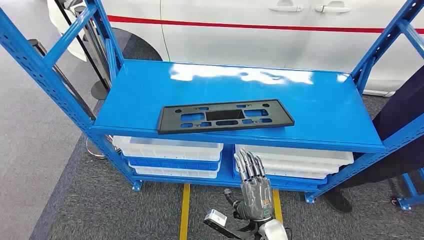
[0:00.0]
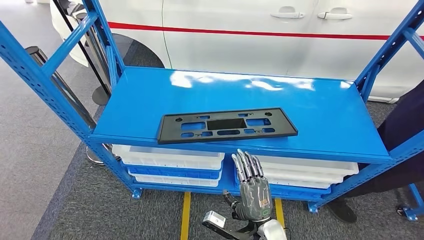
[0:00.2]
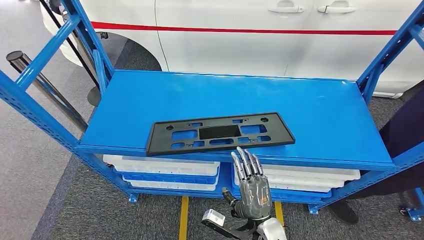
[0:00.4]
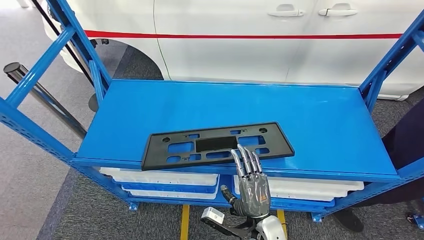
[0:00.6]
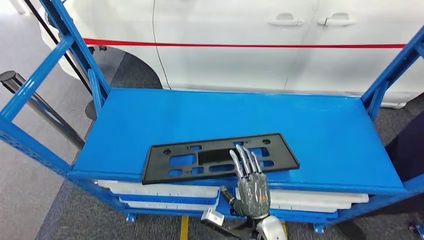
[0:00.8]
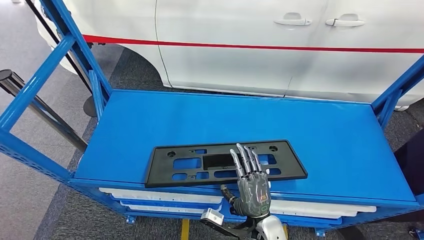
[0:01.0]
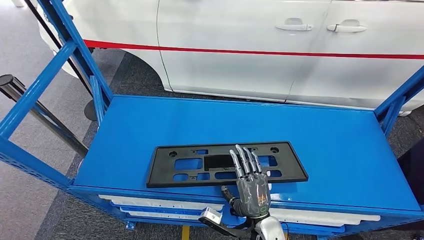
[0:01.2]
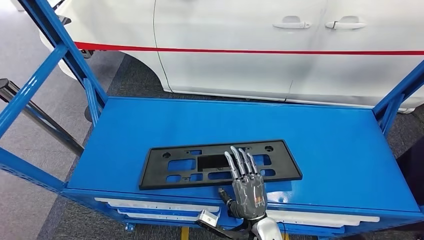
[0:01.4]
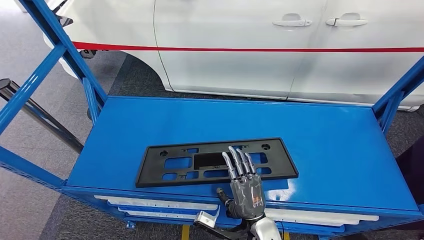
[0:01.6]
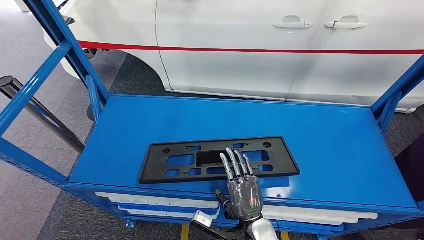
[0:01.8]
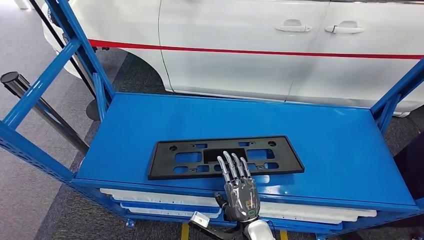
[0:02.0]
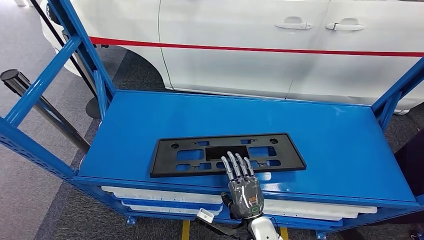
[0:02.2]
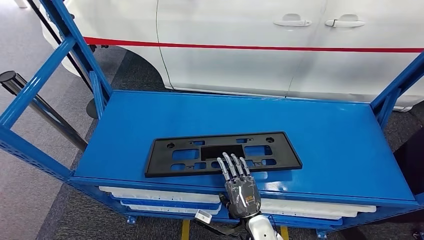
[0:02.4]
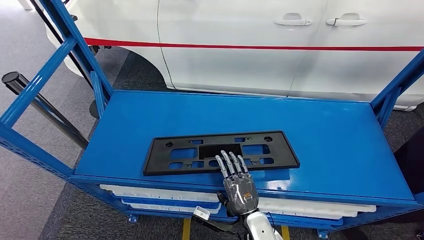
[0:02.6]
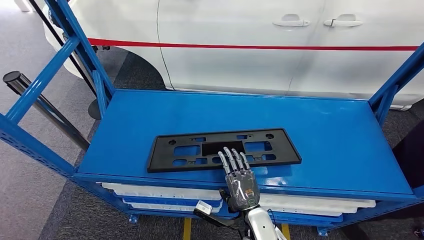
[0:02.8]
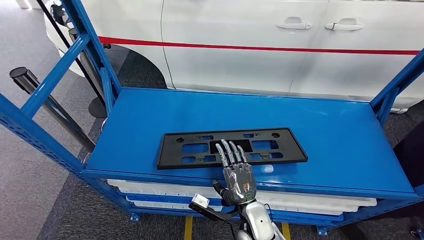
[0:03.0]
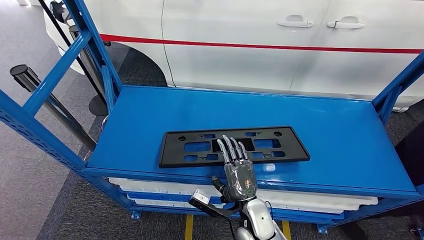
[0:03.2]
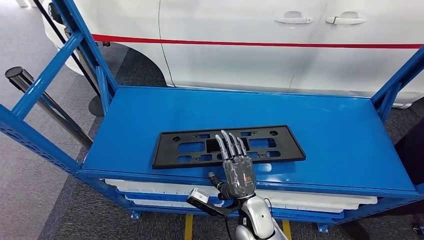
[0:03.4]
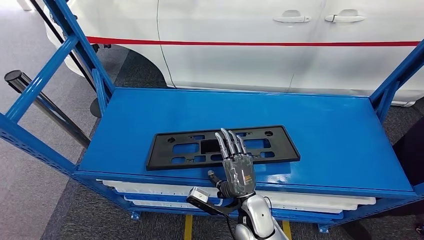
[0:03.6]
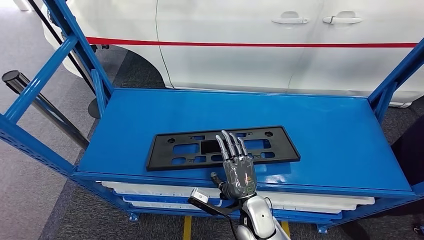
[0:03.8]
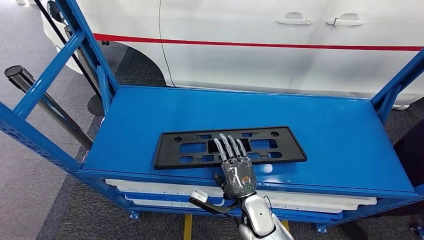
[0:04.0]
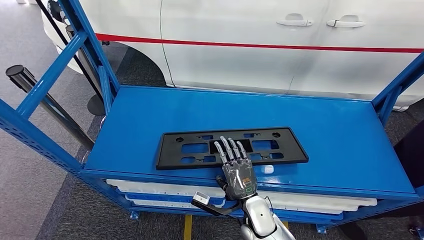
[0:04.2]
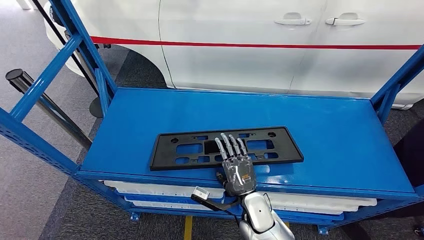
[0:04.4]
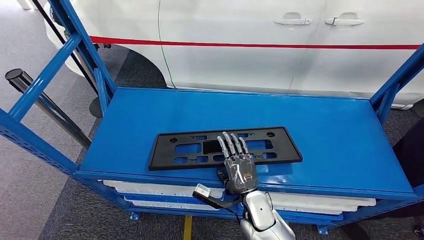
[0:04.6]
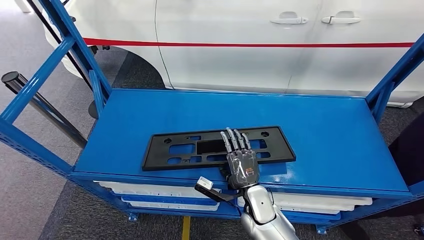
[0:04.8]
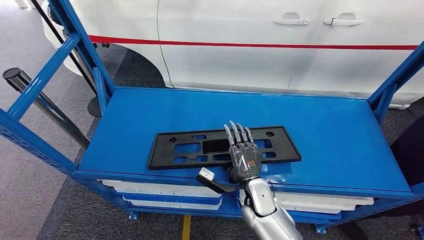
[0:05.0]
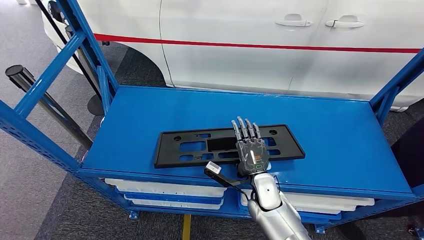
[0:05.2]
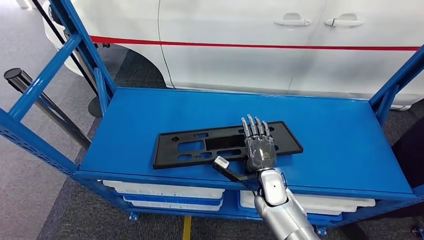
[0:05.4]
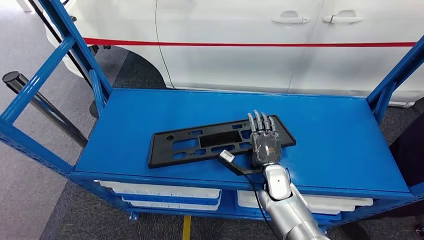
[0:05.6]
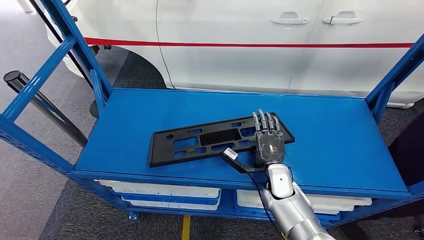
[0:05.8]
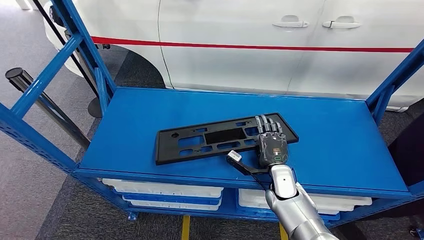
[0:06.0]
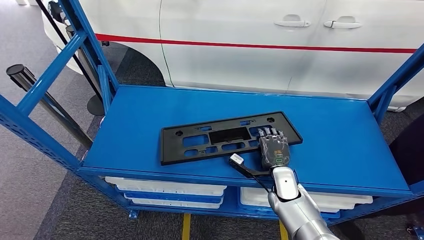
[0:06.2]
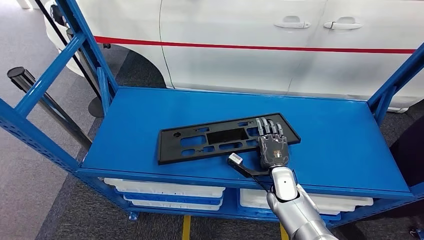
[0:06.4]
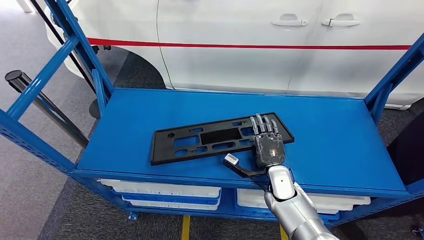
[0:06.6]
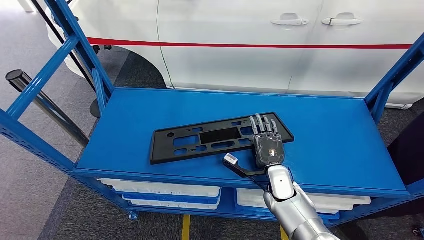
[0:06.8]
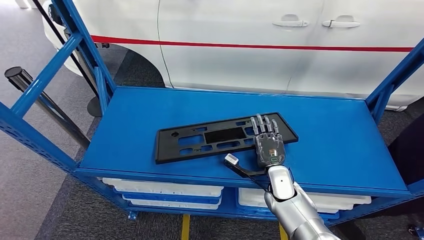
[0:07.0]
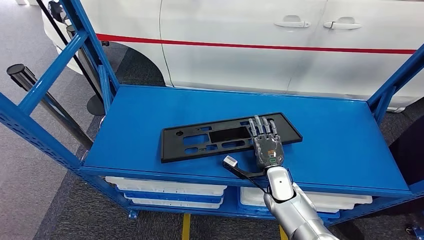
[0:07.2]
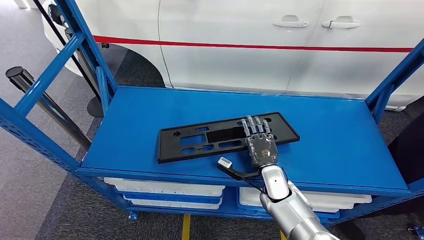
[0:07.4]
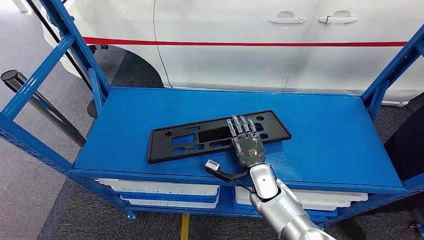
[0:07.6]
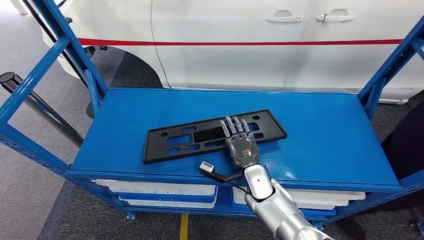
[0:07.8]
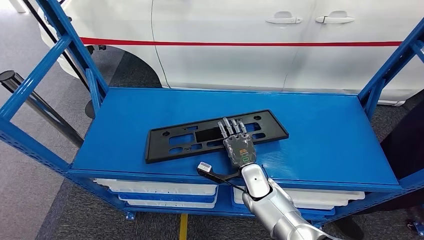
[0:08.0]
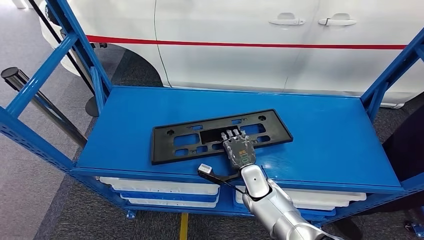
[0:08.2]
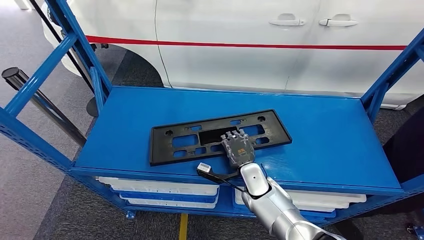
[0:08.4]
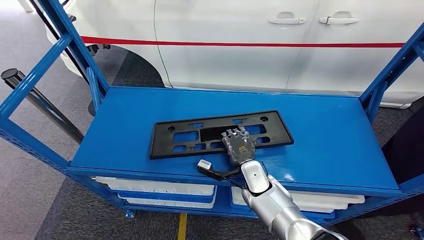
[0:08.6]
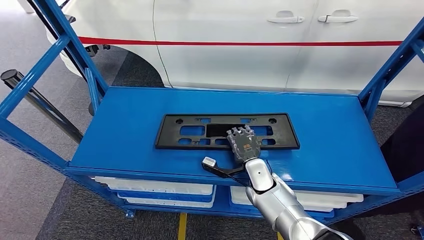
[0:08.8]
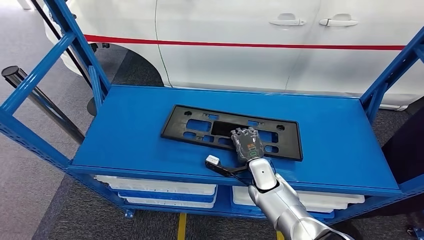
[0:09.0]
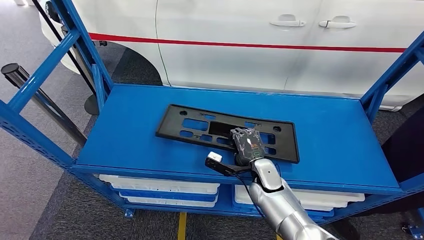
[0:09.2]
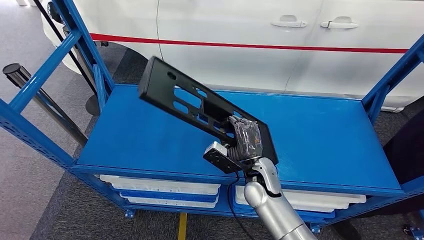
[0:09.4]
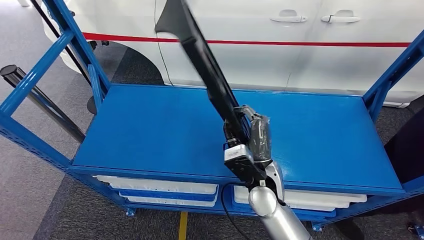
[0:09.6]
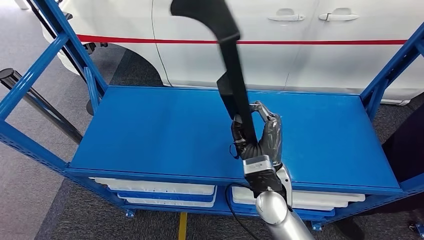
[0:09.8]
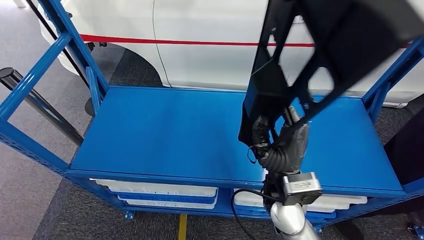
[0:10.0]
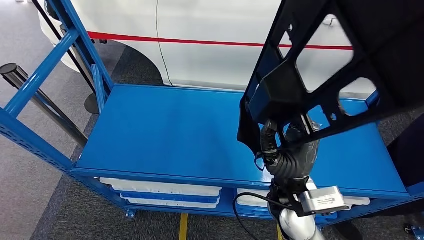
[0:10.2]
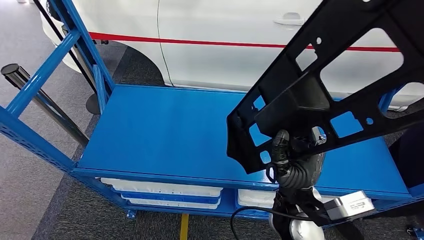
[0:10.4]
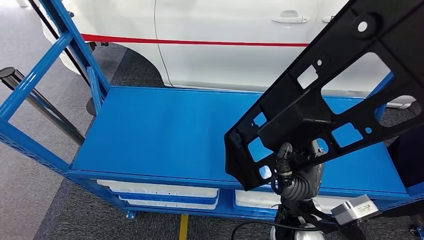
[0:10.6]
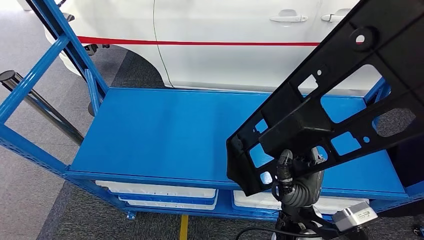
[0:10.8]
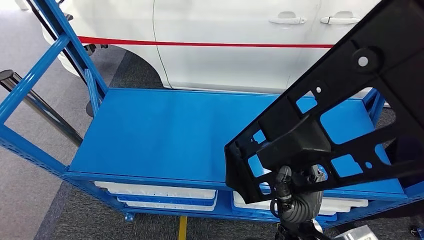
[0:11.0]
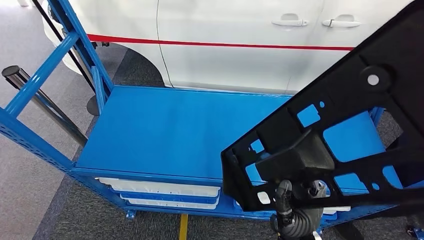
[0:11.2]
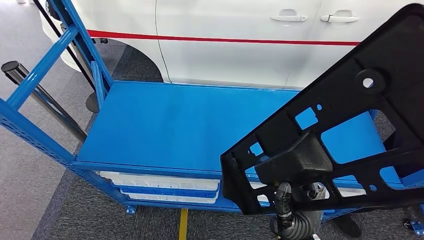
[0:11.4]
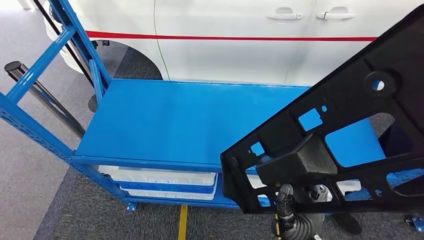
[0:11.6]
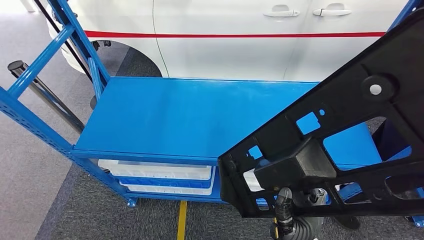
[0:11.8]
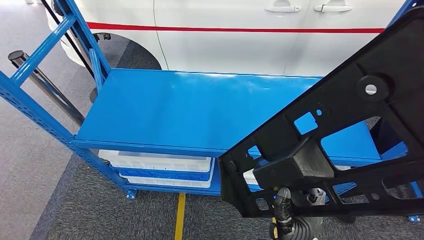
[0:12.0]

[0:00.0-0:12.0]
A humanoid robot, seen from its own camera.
0:03.0 to 0:04.4: The hands make only small movements.
0:04.4 to 0:06.0: The right hand shifts roughly 10 cm to the right and forward.
0:07.6 to 0:09.0: The hands stay close to where they were, moving slightly.

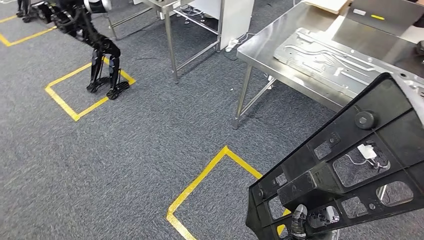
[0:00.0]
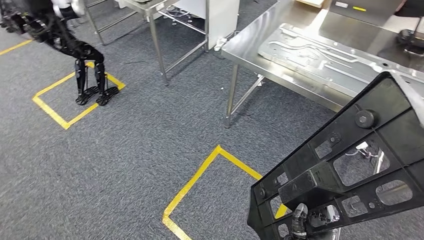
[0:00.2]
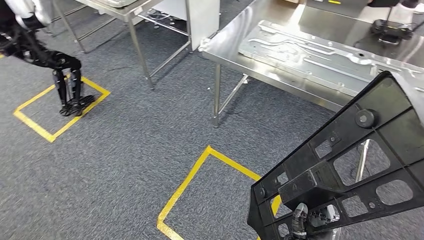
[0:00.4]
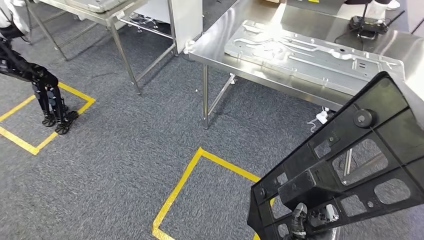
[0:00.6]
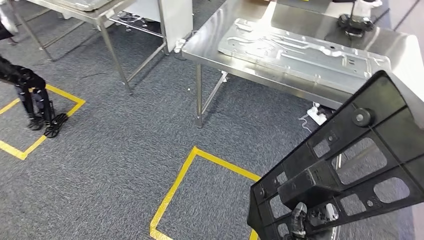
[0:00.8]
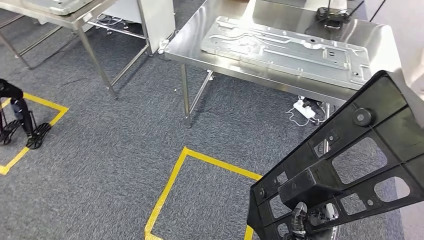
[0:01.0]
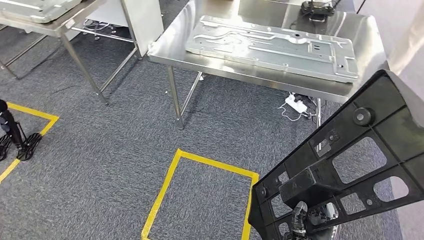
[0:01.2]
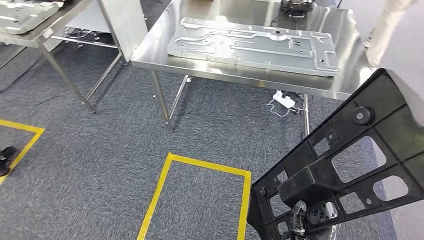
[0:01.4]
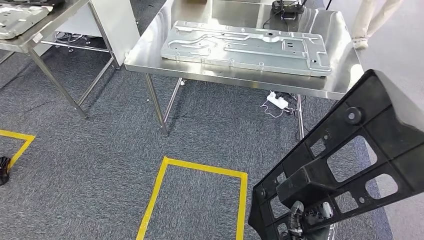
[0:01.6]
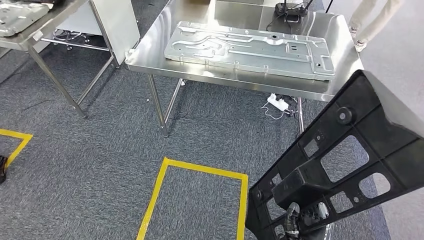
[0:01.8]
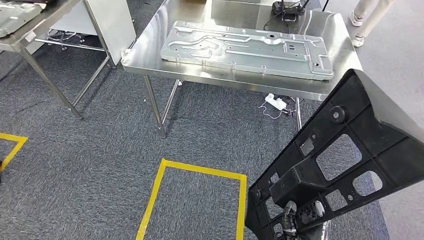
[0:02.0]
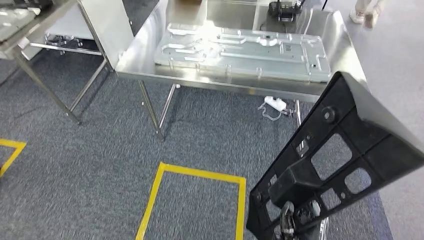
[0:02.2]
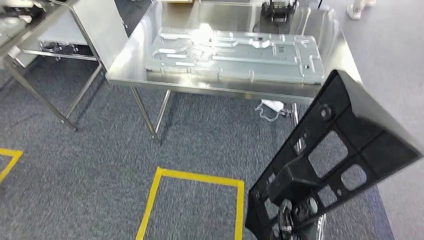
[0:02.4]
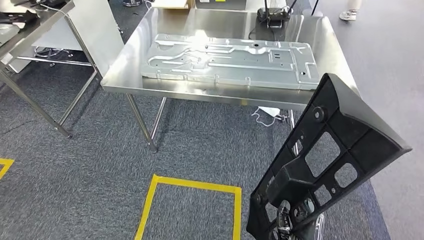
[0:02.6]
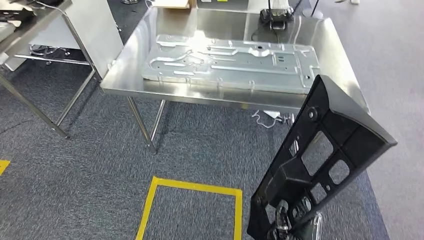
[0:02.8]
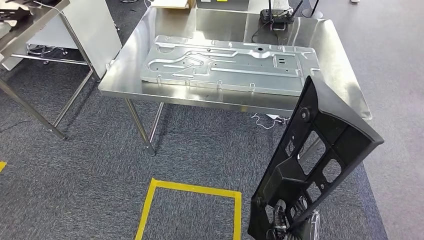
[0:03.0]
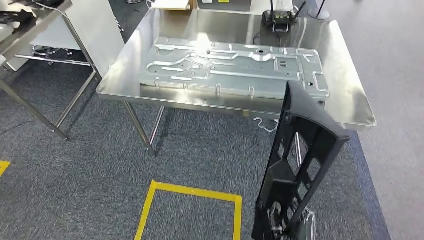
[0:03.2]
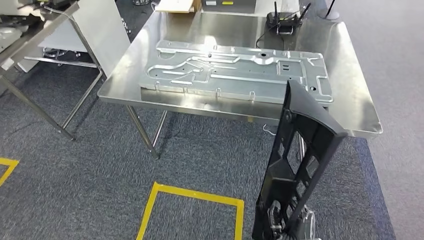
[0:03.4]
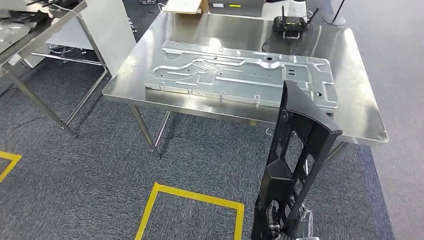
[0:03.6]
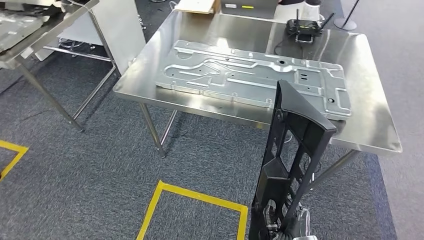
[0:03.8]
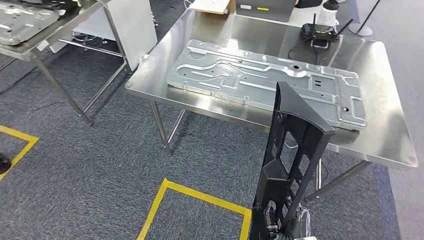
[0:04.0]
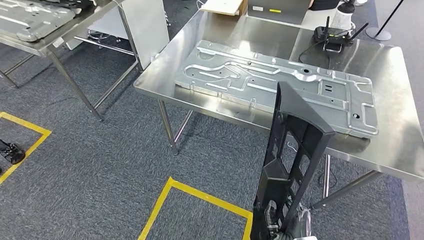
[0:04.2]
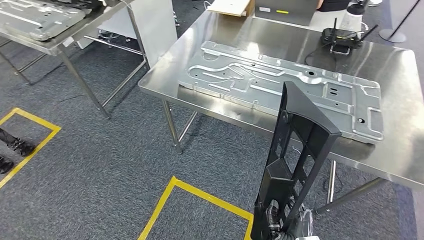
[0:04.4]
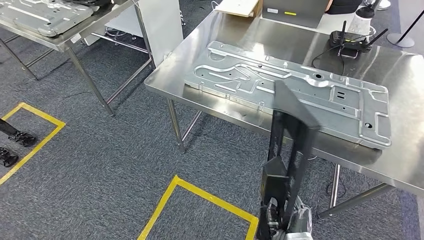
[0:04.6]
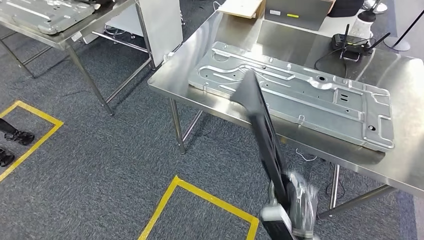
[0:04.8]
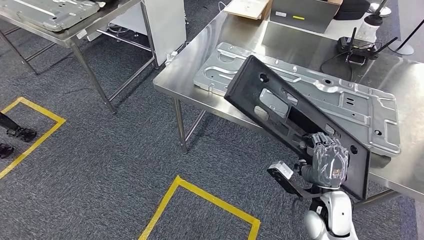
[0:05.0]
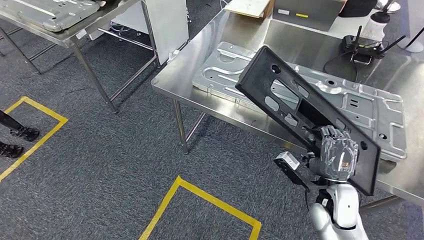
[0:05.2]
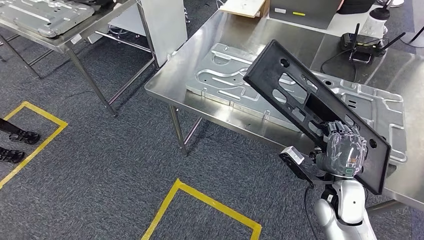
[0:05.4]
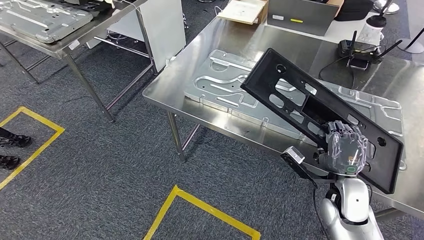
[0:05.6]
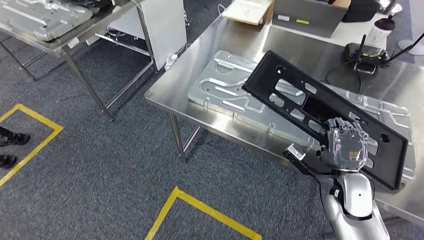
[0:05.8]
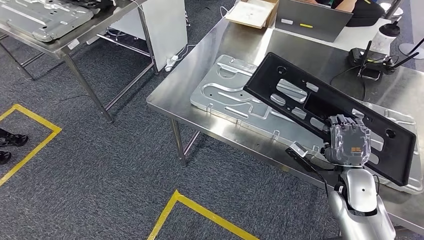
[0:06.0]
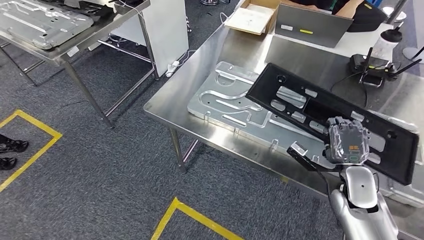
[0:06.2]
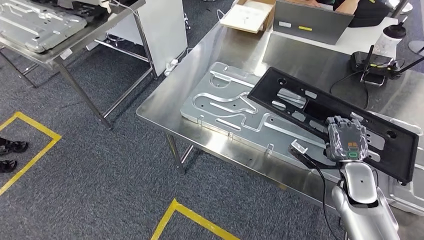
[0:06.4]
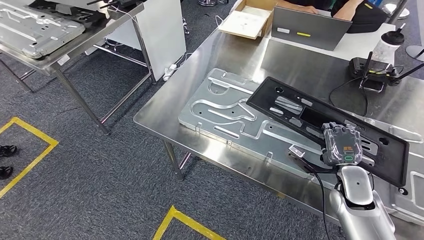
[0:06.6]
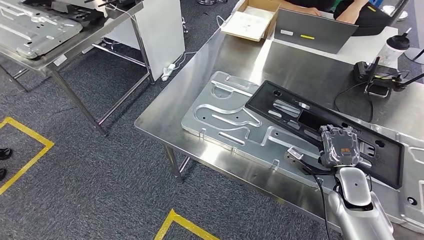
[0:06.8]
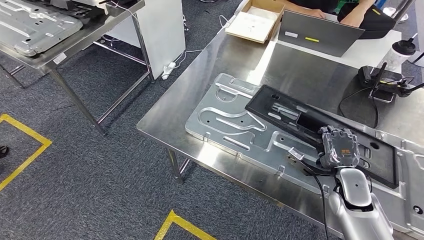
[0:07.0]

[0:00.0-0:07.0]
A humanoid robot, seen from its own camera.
Step, 0:00.0 to 0:04.2: Move the large material to the workbench.
